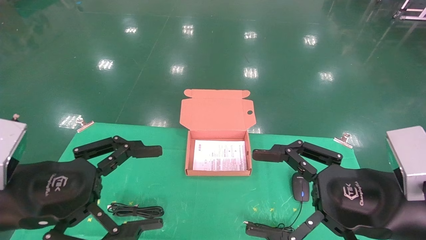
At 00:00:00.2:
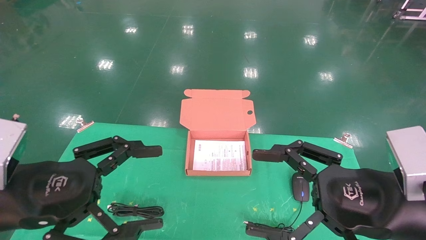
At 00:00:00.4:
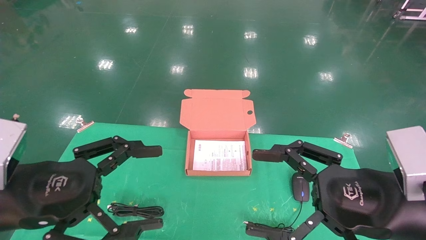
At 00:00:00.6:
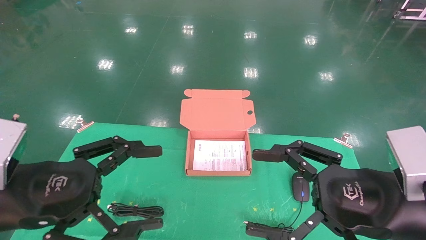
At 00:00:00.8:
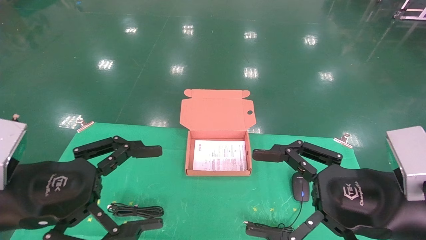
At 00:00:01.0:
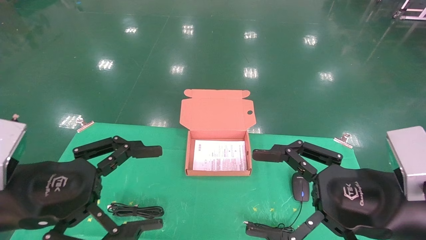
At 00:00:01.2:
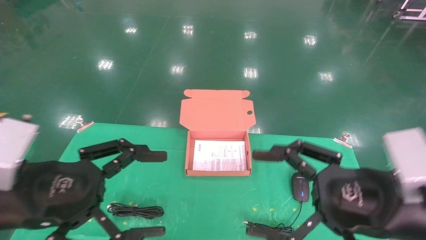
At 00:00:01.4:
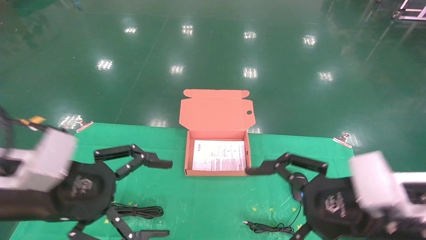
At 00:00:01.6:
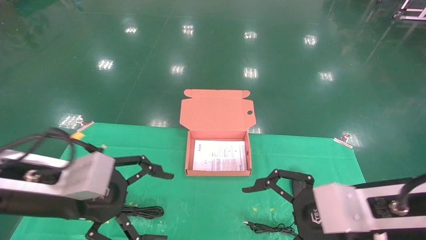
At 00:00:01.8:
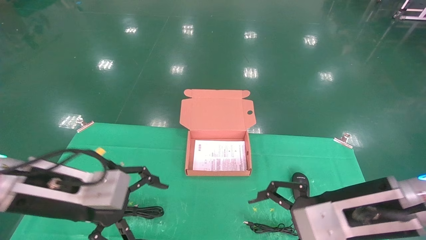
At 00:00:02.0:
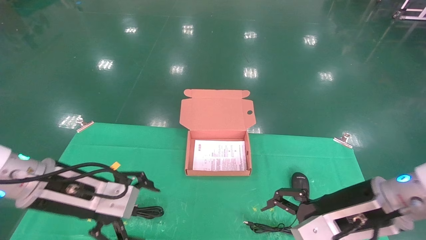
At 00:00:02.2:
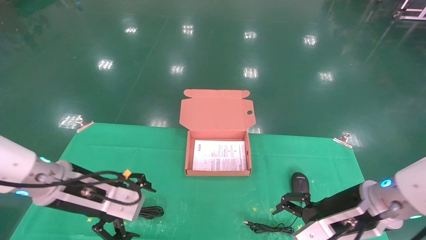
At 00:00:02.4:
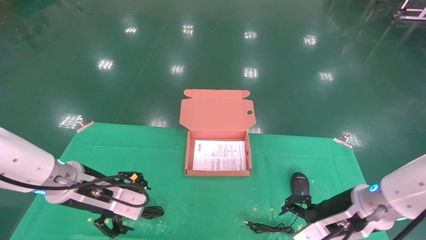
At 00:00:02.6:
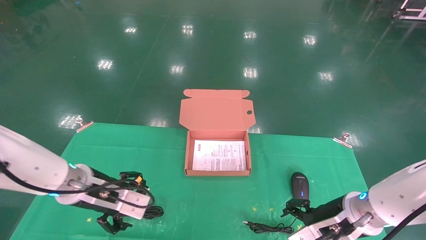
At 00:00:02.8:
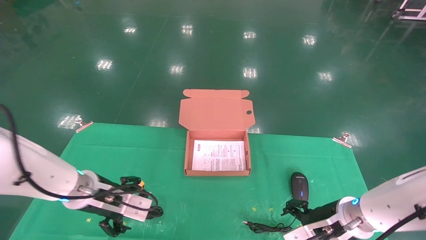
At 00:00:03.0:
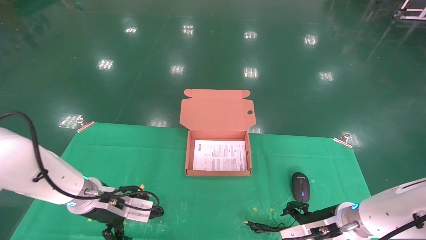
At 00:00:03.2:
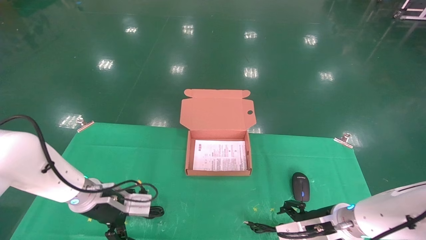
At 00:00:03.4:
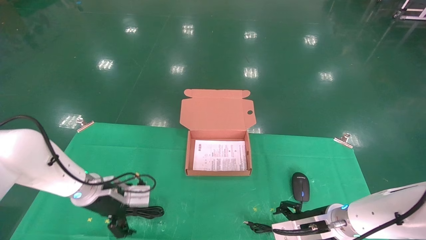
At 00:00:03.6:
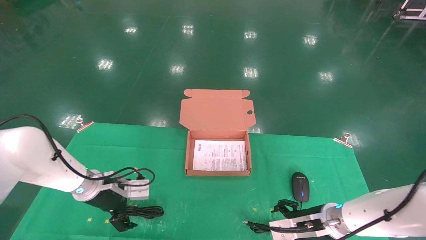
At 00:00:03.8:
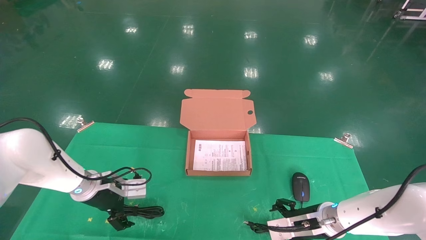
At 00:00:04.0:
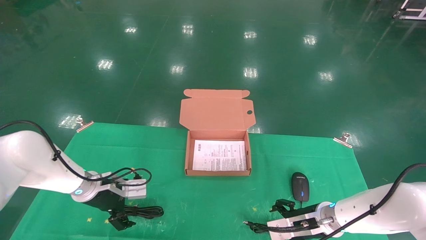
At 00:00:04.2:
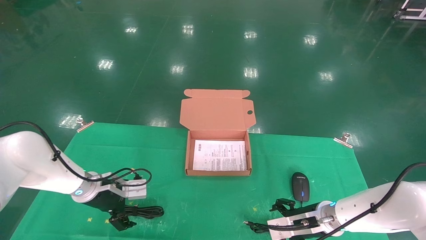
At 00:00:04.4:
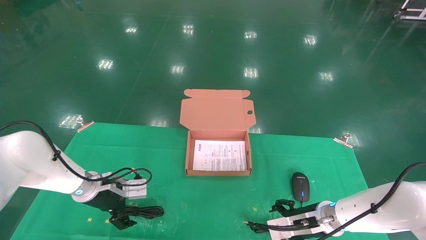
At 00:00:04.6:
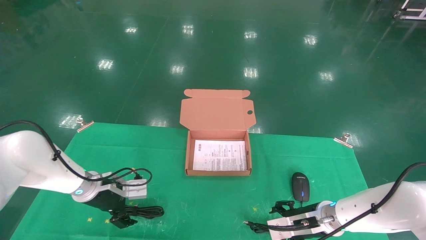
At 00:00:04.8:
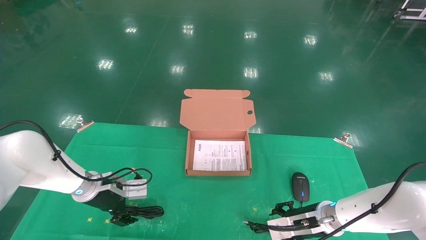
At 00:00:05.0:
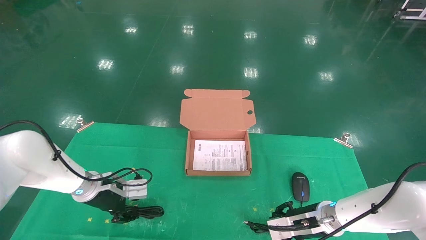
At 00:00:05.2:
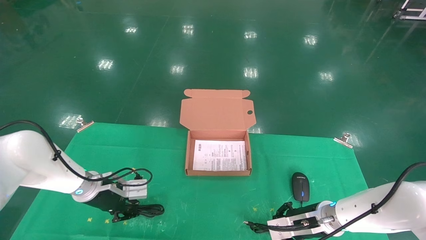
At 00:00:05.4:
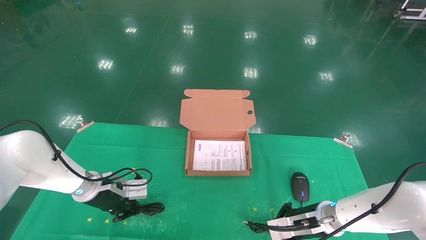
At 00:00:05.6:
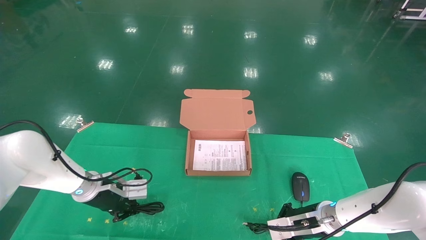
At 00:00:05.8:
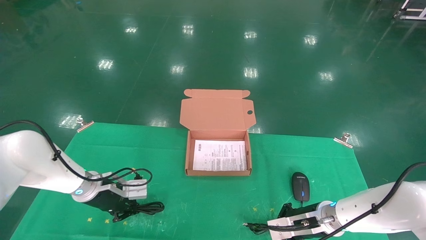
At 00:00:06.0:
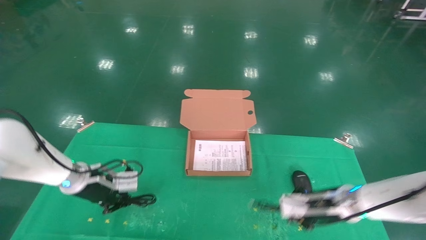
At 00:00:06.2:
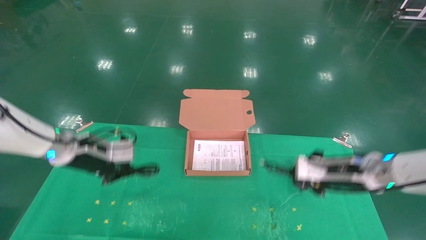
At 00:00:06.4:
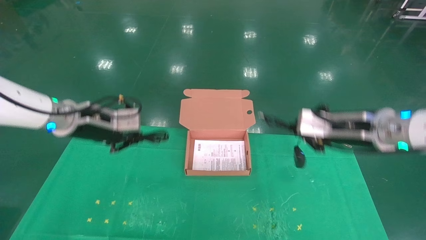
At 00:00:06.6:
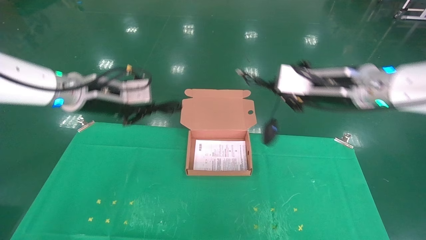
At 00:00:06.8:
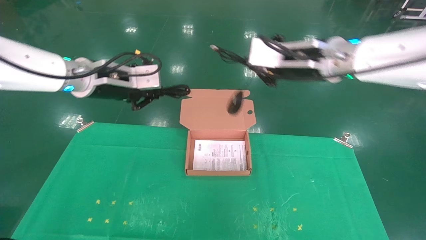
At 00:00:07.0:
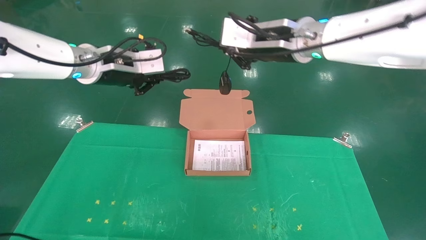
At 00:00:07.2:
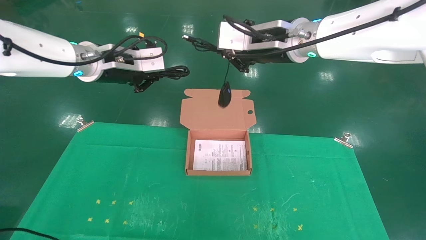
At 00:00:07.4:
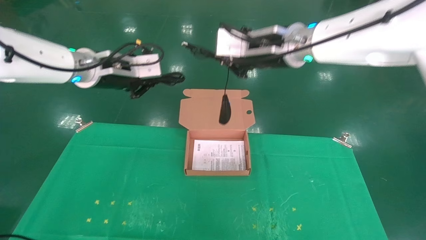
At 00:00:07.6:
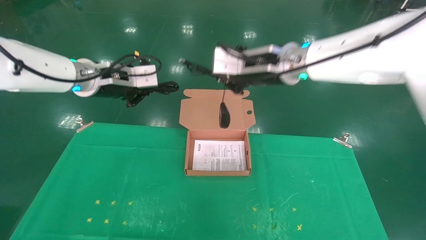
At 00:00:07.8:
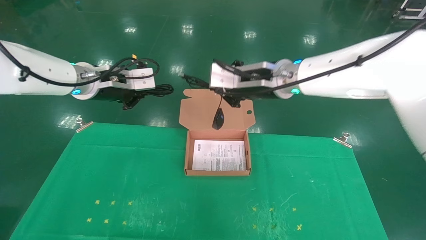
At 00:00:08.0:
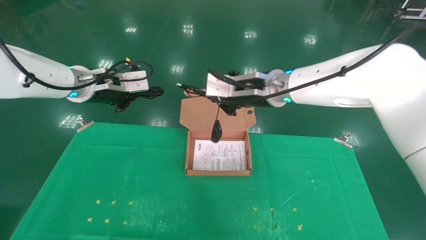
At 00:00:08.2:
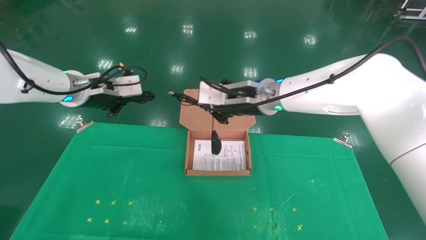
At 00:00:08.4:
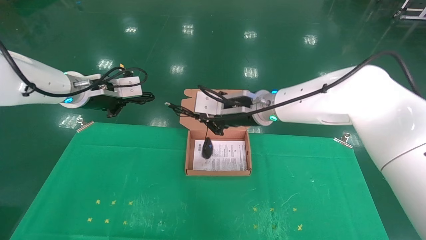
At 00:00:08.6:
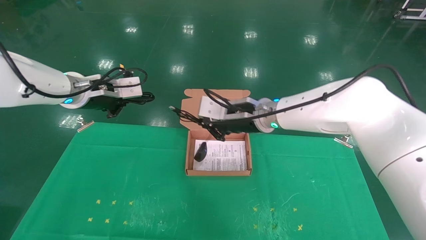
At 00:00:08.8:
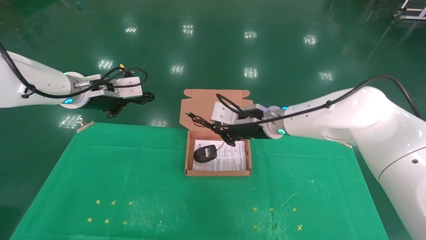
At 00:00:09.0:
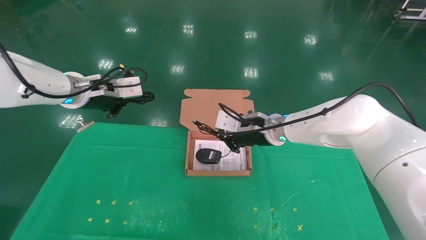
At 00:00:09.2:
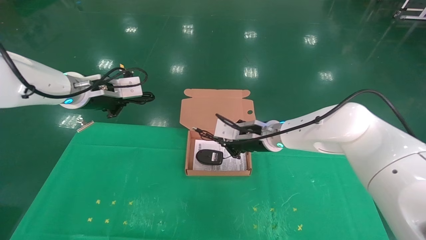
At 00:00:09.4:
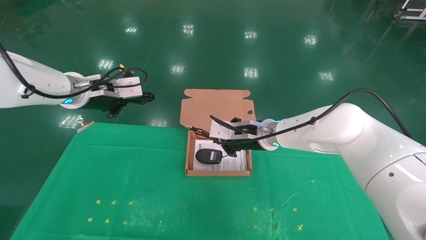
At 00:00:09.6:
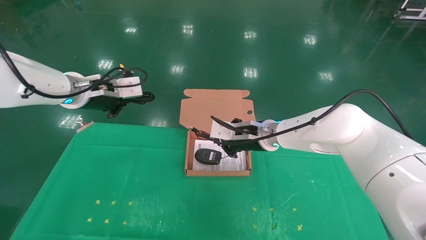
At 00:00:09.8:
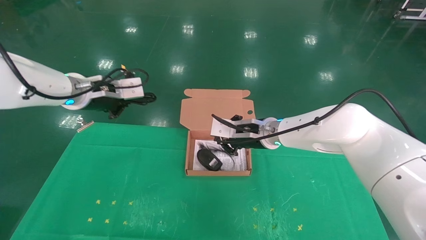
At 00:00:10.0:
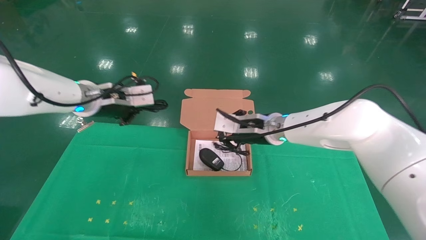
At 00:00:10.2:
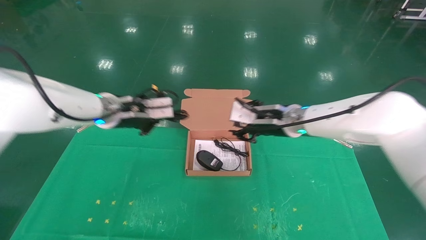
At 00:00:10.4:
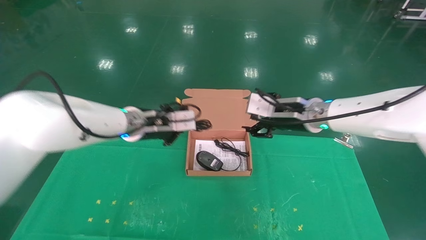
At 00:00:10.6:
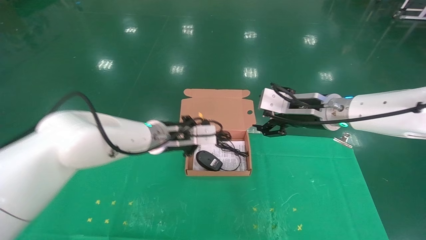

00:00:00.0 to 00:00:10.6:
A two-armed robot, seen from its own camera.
Task of the whole recording: grasp data cable left put into box grasp mouse right put into box.
Step, 00:00:00.6 to 00:00:05.8: Grab and pick up both the mouse and power cord from the accessory packaging area at the same time.
00:00:00.0 to 00:00:01.6: The left gripper moves roughly 5 cm.
00:00:01.6 to 00:00:03.0: The left gripper travels forward and downward by some 20 cm. The right gripper moves downward and forward, about 20 cm.
00:00:03.0 to 00:00:04.6: Both grippers move forward, roughly 5 cm.
00:00:04.6 to 00:00:06.0: Both grippers move upward, some 5 cm. The right gripper closes its fingers, while the left gripper closes its fingers.
00:00:06.0 to 00:00:07.6: The left gripper moves upward, approximately 20 cm. The right gripper moves upward and to the left, approximately 30 cm.
00:00:07.6 to 00:00:09.0: The right gripper heads downward, covering about 15 cm.
00:00:09.0 to 00:00:10.6: The left gripper moves to the right and downward, some 20 cm, while the right gripper moves to the right, upward and backward, some 15 cm, and opens.

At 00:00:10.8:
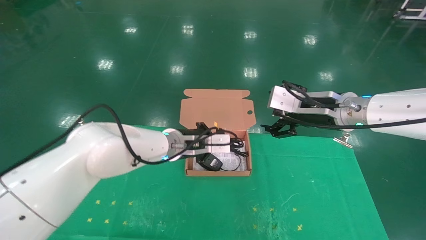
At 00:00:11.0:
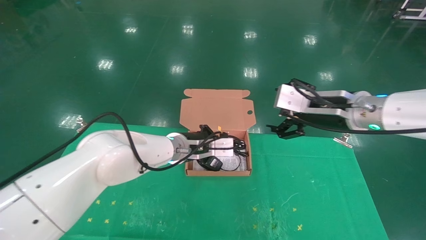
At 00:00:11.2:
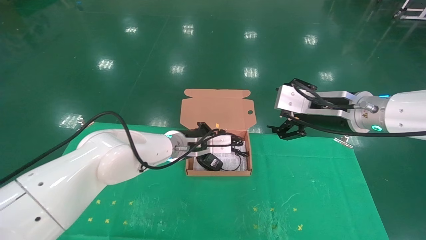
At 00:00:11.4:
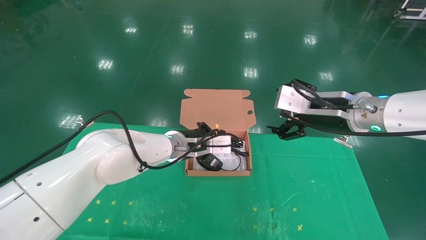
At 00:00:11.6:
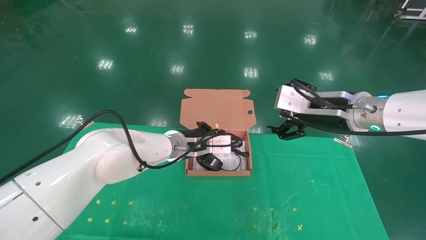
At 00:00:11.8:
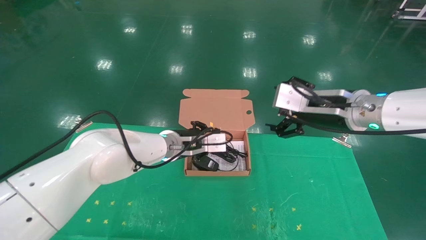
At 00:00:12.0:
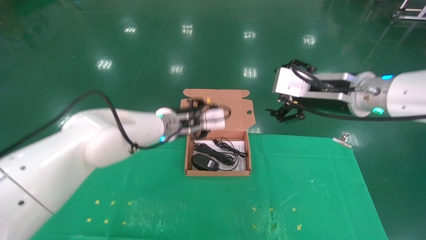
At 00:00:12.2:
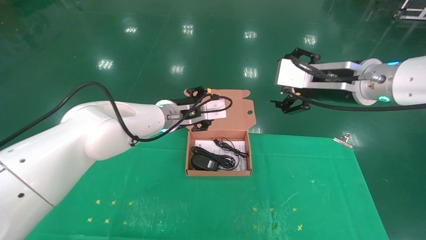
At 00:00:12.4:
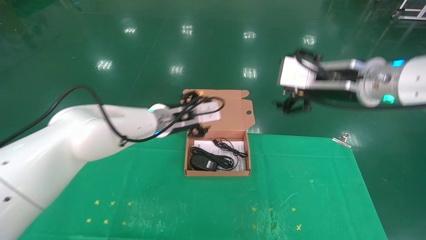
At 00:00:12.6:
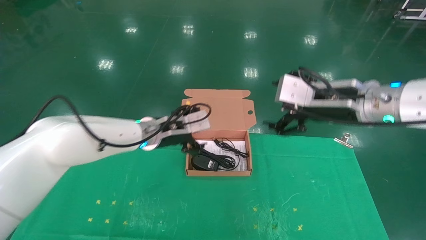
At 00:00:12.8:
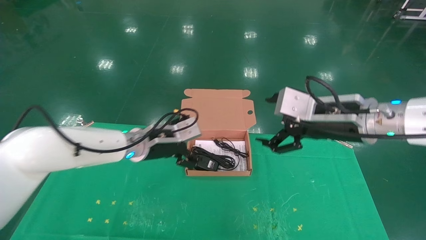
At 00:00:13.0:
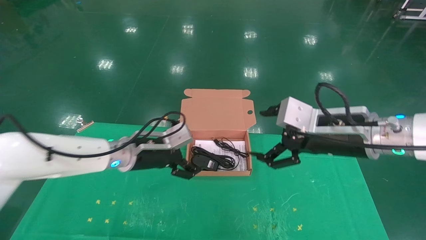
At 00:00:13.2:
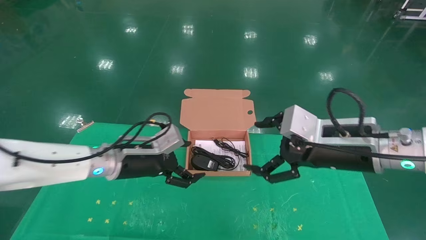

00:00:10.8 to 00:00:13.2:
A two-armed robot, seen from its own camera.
Task of the whole recording: grasp data cable left put into box grasp mouse right put into box.
00:00:10.8 to 00:00:12.0: The right gripper ends up roughly 5 cm from where it was; the left gripper opens its fingers.
00:00:12.0 to 00:00:13.2: The left gripper heads to the left and backward, covering roughly 10 cm, and opens. The right gripper goes approximately 10 cm downward and backward.
